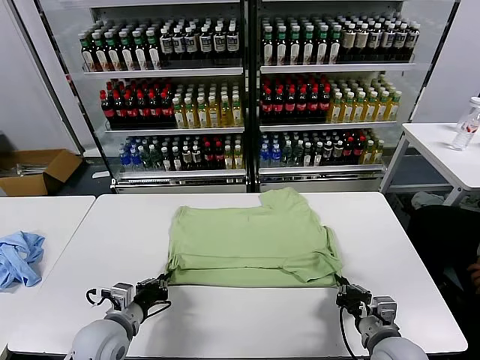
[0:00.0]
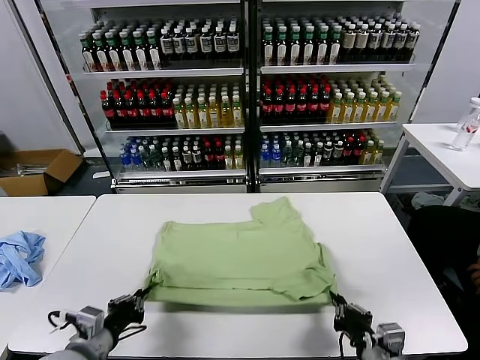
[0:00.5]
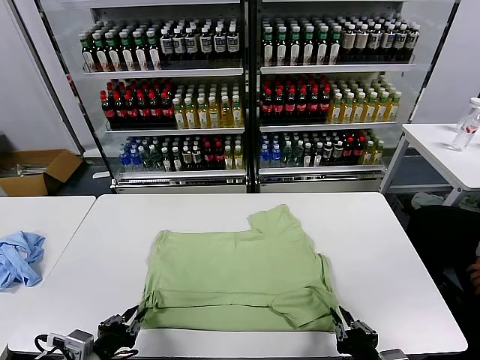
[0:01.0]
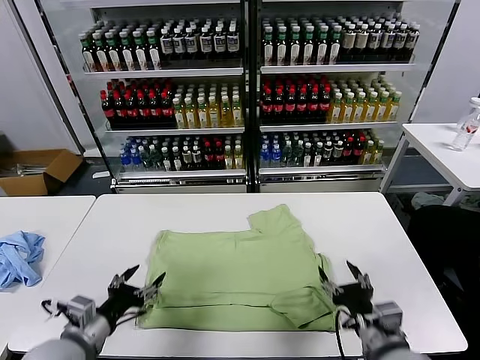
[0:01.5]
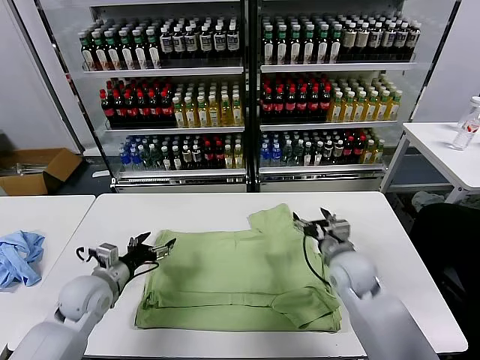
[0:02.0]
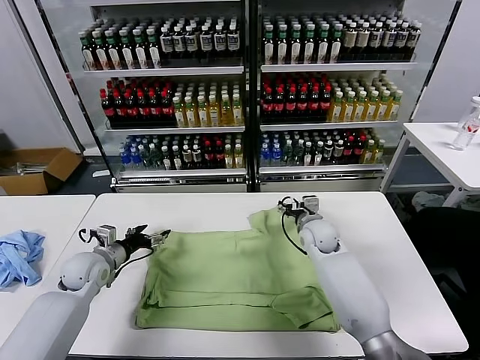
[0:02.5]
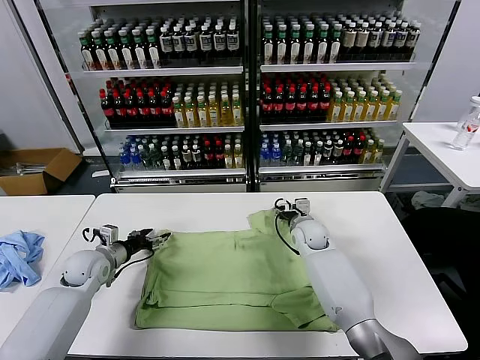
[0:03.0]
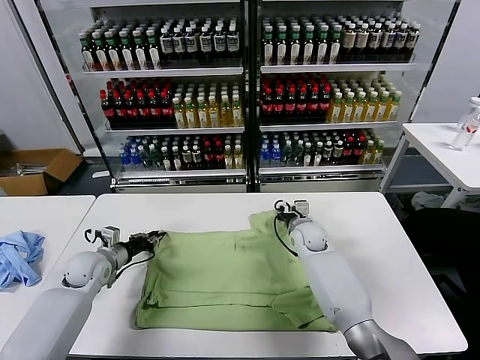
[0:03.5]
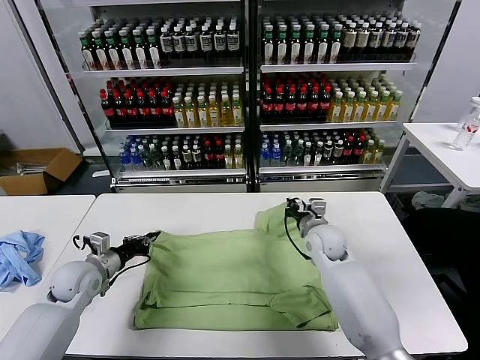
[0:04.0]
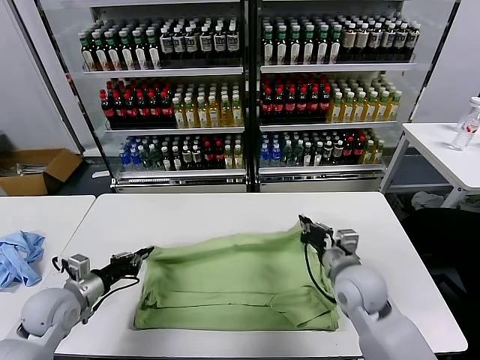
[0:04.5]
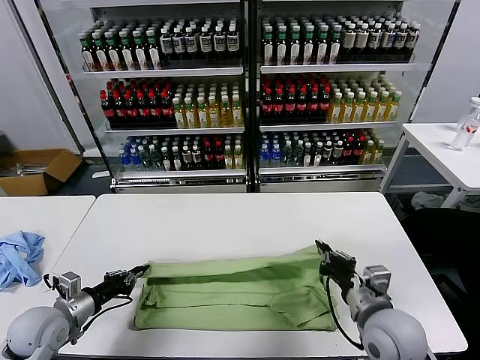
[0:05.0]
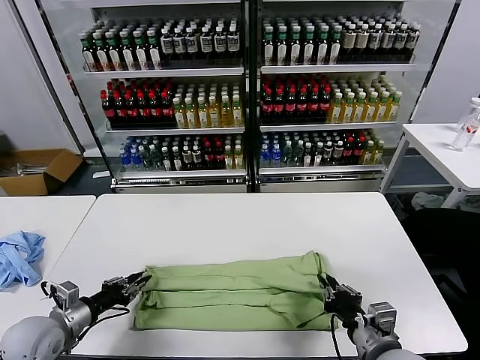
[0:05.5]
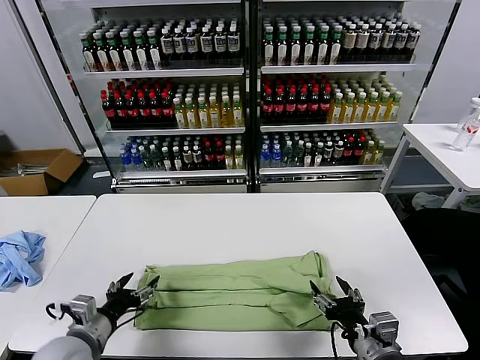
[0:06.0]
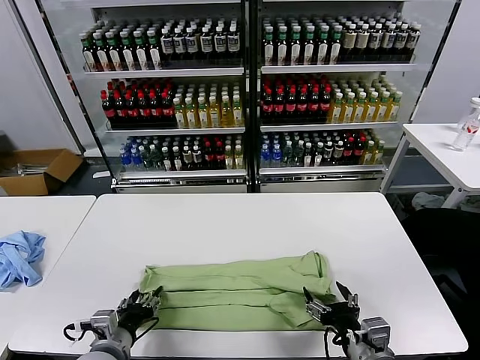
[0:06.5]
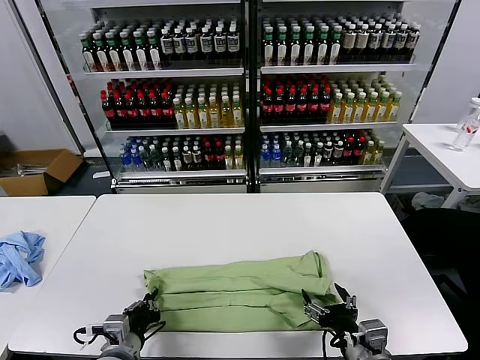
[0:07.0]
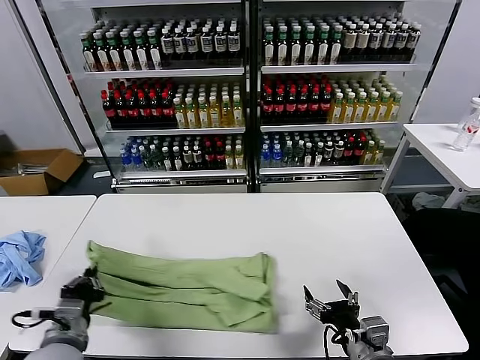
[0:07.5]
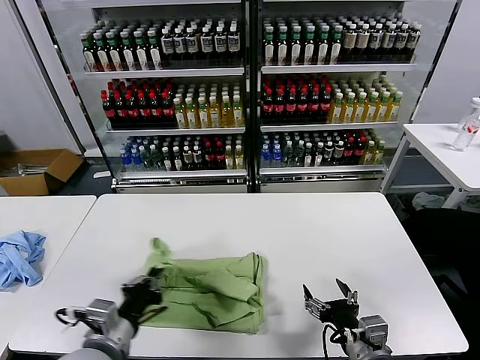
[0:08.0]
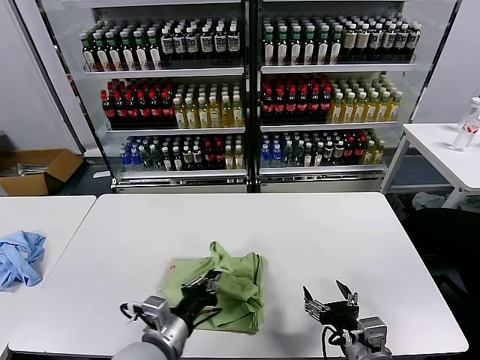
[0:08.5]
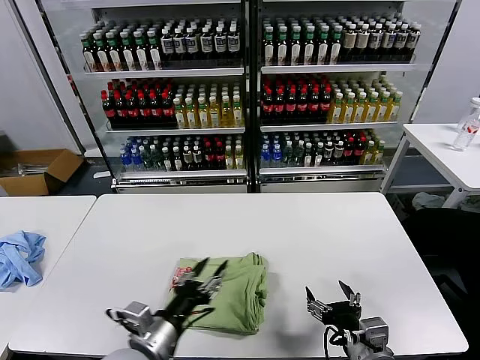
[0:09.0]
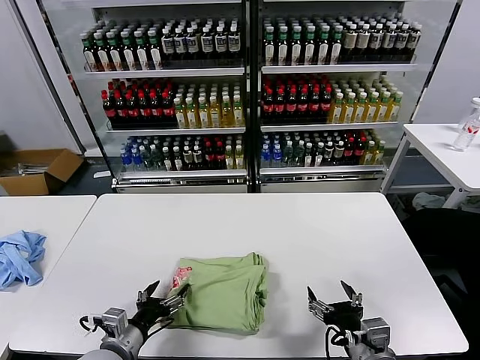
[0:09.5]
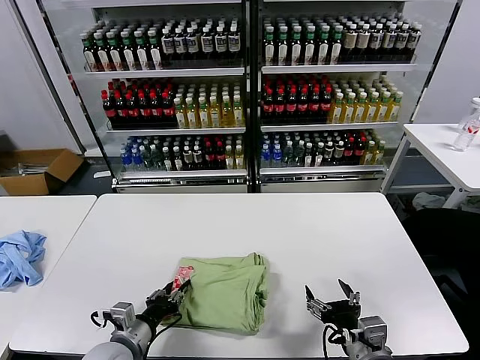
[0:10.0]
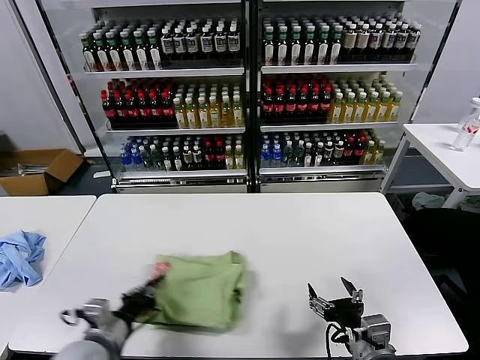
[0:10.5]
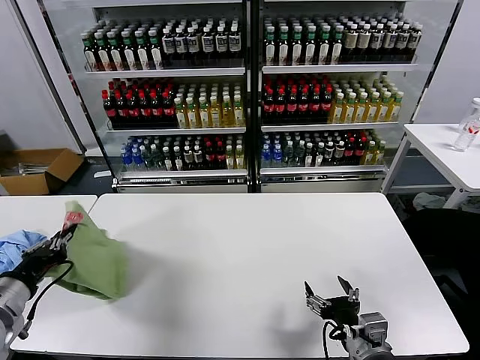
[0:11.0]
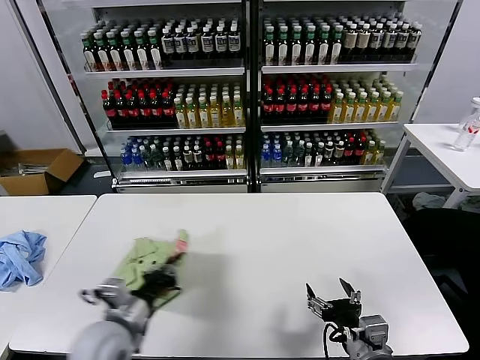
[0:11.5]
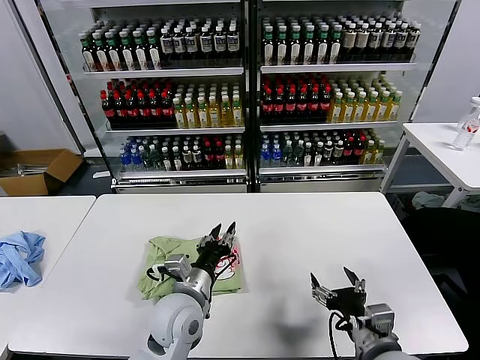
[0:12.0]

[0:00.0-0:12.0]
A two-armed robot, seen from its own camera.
Task of the whole recording: fold and organize the clothes.
Step, 0:01.5 to 0:03.5: use both grippers simultaneously to clamp the upper edge of the clothing fabric.
Step, 0:04.0 to 0:05.5: use both grippers to drag the upper edge of the fabric backward and fold it over the lower edge.
Step, 0:06.0 to 0:07.0: use the left gripper to clamp the left edge of the fabric.
Step, 0:07.5 to 0:08.5: use the left gripper to drag the left edge of the fabric to the left and folds it over the right edge.
Step, 0:09.0 to 0:11.5: Flip the folded clothes over with left gripper.
0:00.0 to 0:02.0: The left gripper is displaced forward and to the left by roughly 10 cm, and opens up. The right gripper moves forward, about 20 cm, and opens its fingers.
0:02.0 to 0:04.0: The right gripper goes some 5 cm forward, and closes up; the left gripper closes.
0:04.0 to 0:06.0: The right gripper travels backward by about 30 cm, and opens its fingers. Meanwhile the left gripper shifts approximately 15 cm backward, and opens up.
0:06.0 to 0:08.0: The left gripper shifts roughly 10 cm to the right and upward, and closes its fingers.
0:08.0 to 0:10.0: The left gripper heads downward, covering about 10 cm, and opens its fingers.
0:10.0 to 0:12.0: The left gripper is displaced to the right, forward and upward by roughly 15 cm, and closes, then opens again.

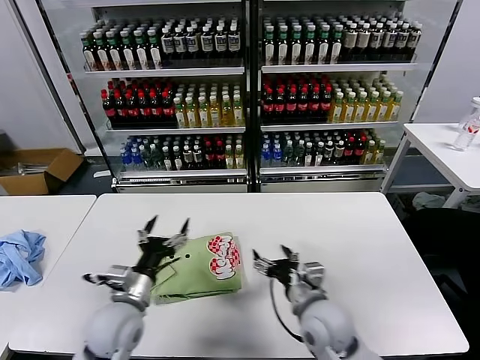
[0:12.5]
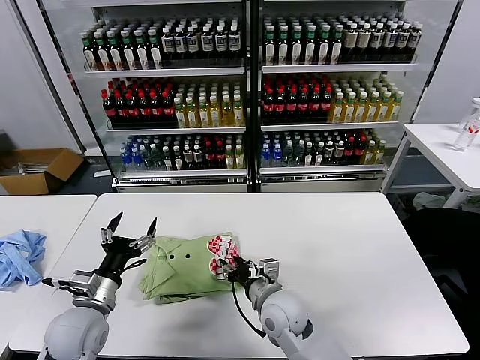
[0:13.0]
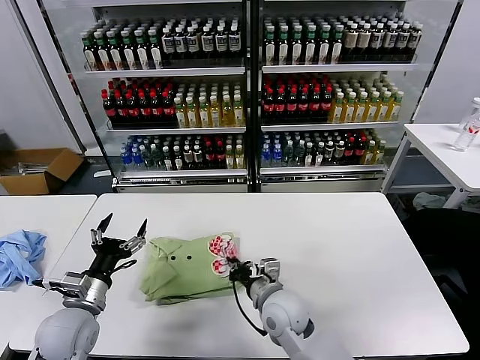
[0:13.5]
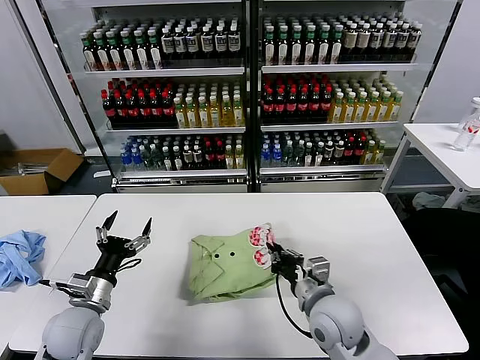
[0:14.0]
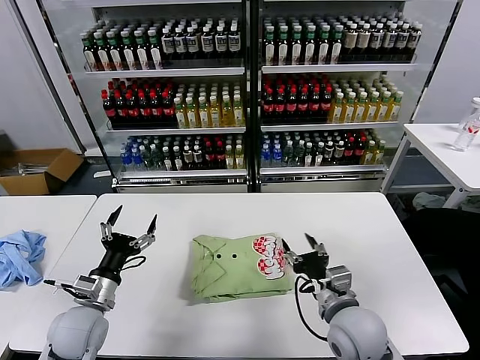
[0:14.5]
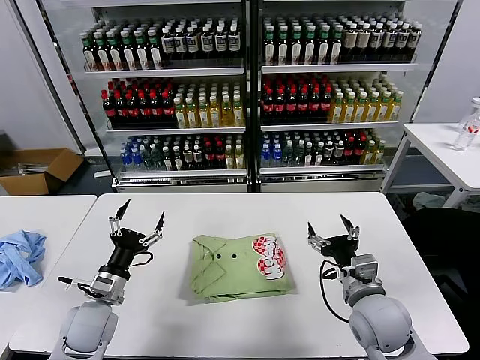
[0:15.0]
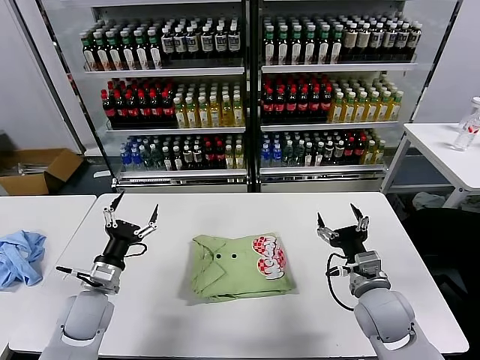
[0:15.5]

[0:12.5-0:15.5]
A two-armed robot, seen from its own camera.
Task of the whole recording: fold and organize the clothes.
Step, 0:12.5 to 0:14.0: Drag the clothes to the center of the table.
0:12.5 to 0:14.0: The right gripper reaches approximately 10 cm to the left, then returns, and closes its fingers; the left gripper moves to the left, approximately 10 cm.
0:14.0 to 0:15.5: The right gripper shifts roughly 10 cm to the right, and opens up.
